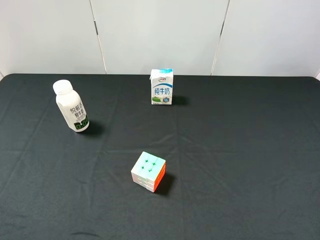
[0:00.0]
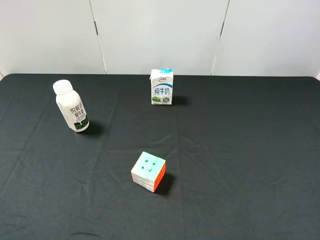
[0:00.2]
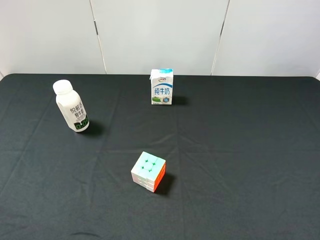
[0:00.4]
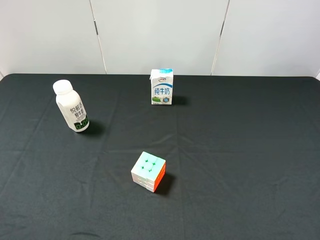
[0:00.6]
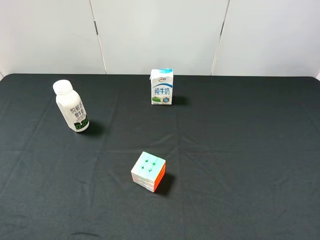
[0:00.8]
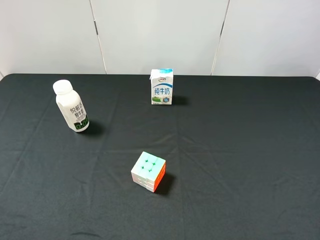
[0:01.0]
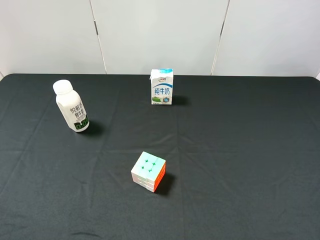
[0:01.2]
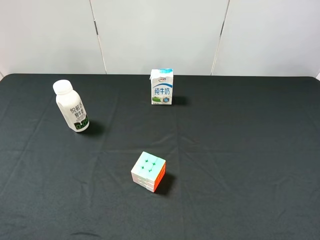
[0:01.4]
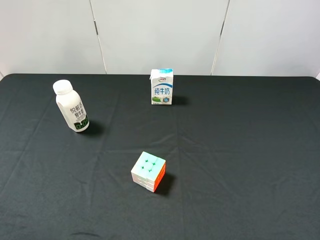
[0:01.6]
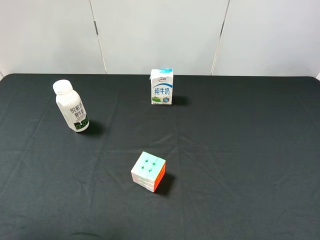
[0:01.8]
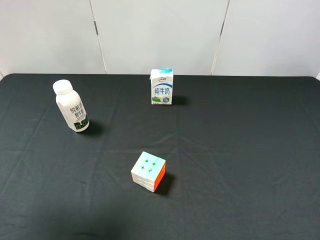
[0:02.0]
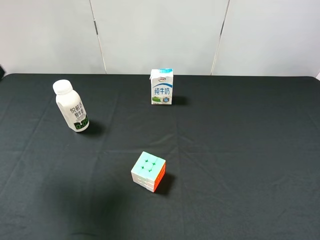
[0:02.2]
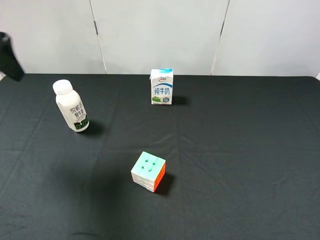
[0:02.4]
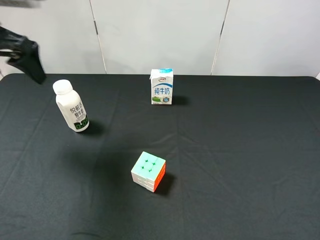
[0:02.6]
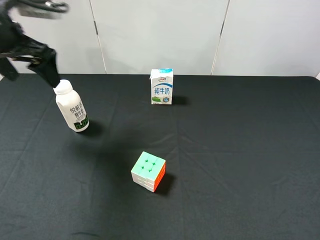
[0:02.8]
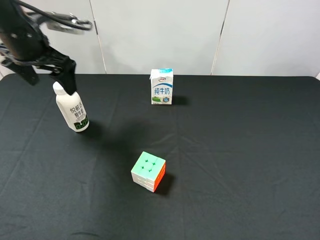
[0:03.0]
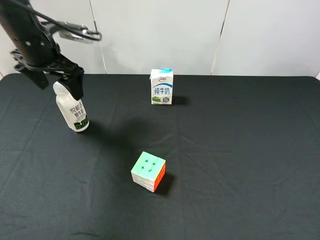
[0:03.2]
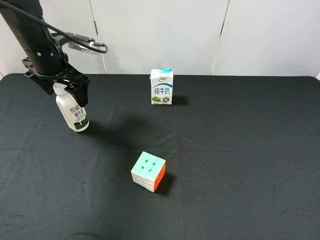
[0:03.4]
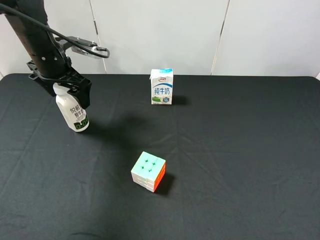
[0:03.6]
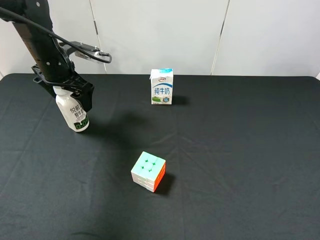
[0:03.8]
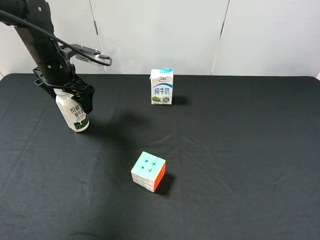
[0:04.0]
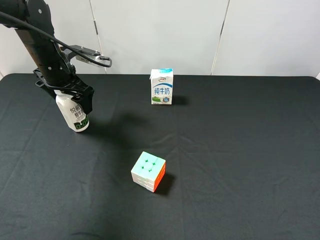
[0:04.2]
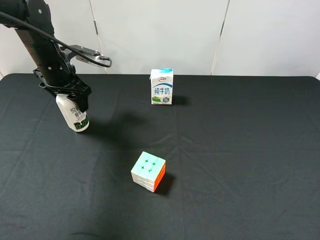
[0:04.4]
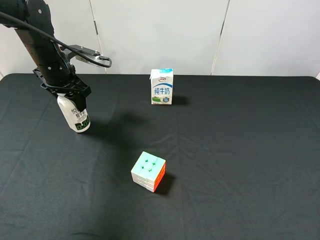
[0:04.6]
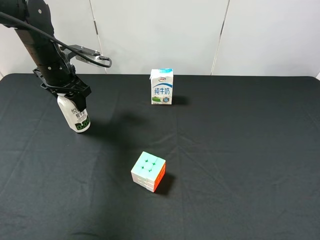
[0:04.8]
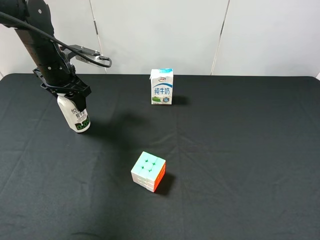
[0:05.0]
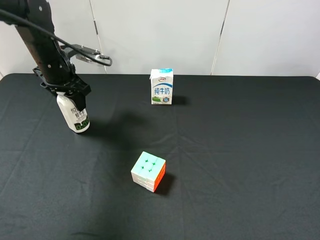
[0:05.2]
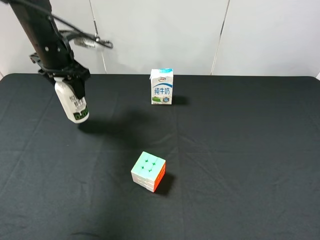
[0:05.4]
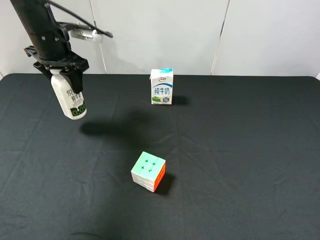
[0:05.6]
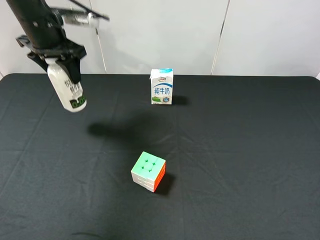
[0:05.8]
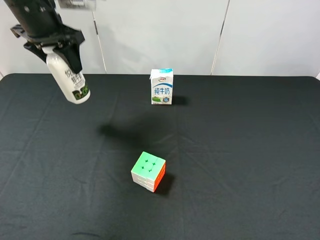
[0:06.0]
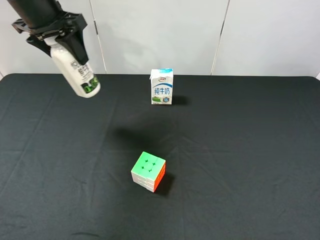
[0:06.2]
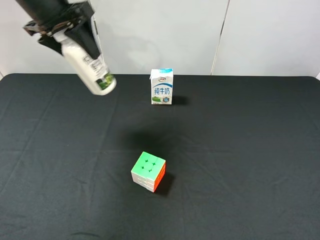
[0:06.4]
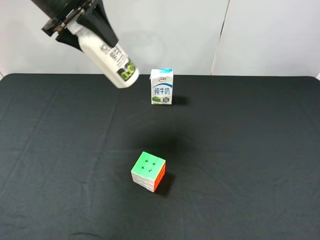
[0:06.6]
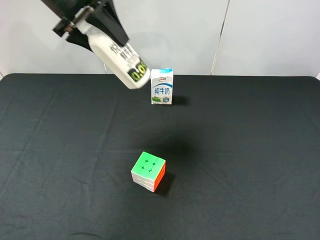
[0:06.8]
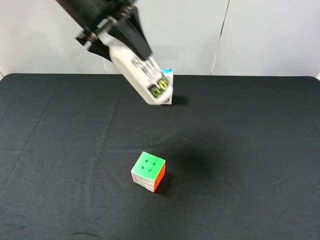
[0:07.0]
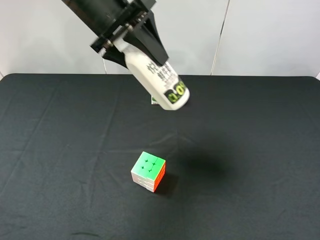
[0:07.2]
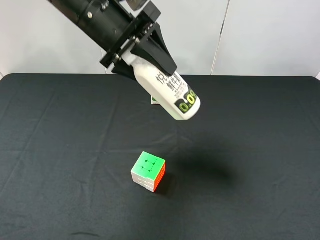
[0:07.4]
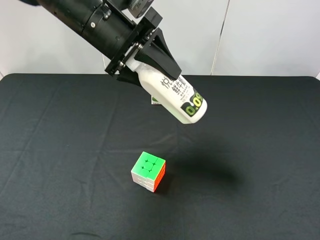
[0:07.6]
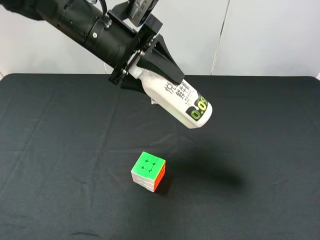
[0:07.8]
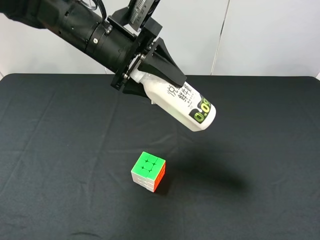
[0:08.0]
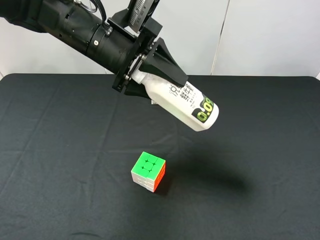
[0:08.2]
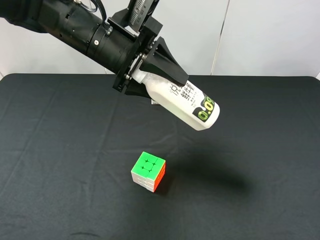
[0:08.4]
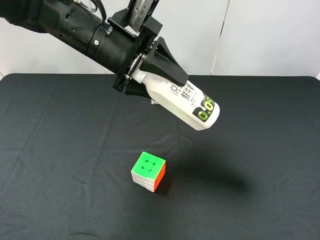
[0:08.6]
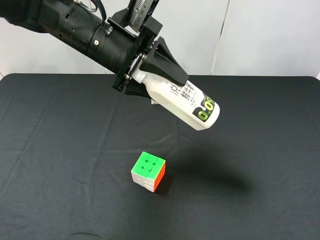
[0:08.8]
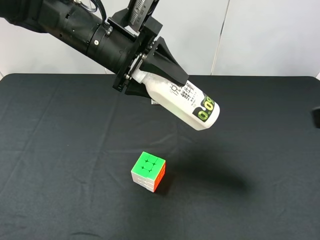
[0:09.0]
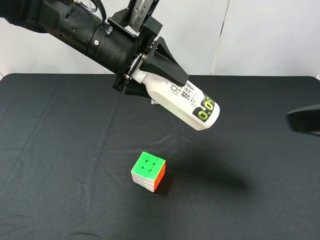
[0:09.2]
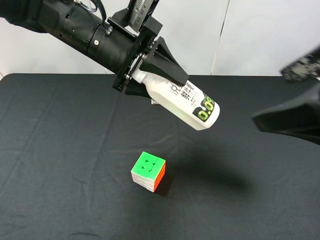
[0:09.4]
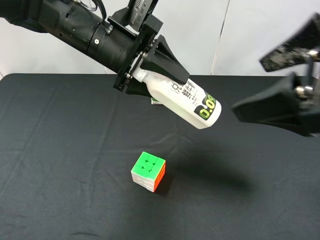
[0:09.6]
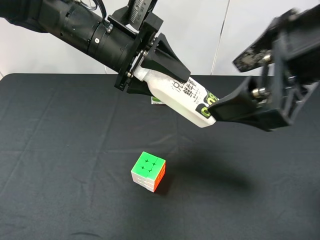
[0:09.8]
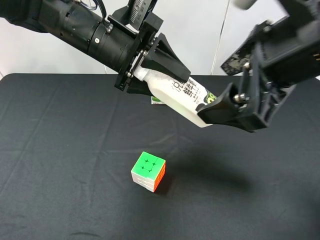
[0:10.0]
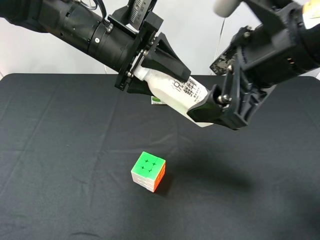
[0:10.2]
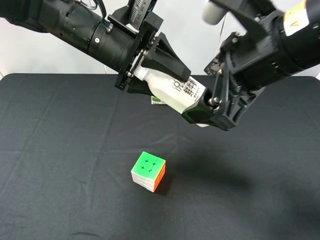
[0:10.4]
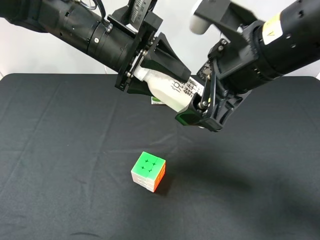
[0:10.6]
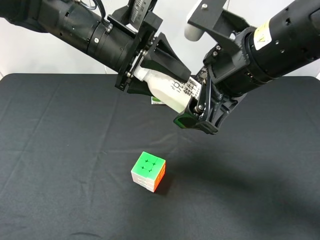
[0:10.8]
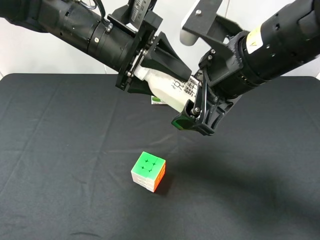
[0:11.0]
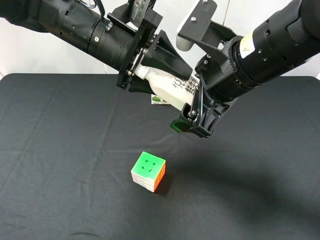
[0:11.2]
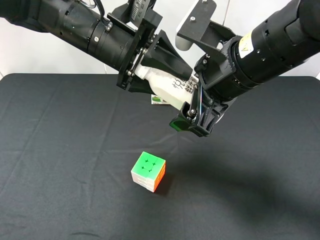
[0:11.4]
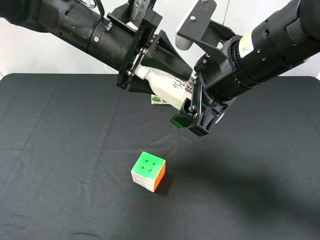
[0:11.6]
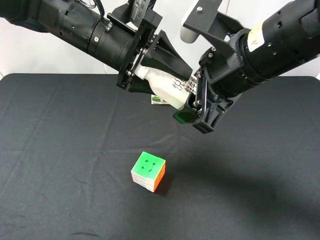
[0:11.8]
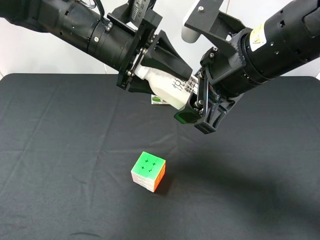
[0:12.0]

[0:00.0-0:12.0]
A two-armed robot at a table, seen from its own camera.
Task of the whole recording: use the left gripper to pick up the item and transfer it from the left gripper to the right gripper.
0:01.6 to 0:03.0: The left gripper heads forward, covering some 30 cm.
0:03.0 to 0:04.4: The left gripper is displaced downward by roughly 10 cm, and closes.
0:04.4 to 0:06.0: The left gripper moves upward, about 10 cm.
0:06.0 to 0:07.6: The left gripper shifts roughly 15 cm to the right and backward.
0:07.6 to 0:09.0: The right gripper travels forward and upward by about 10 cm.
0:09.0 to 0:10.4: The right gripper shifts approximately 15 cm to the left and forward.
0:10.4 to 0:12.0: The right gripper closes.

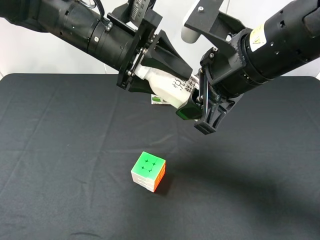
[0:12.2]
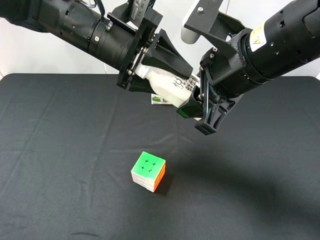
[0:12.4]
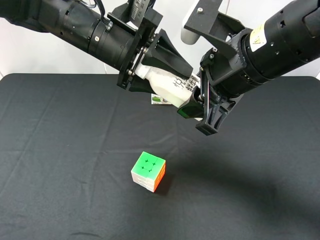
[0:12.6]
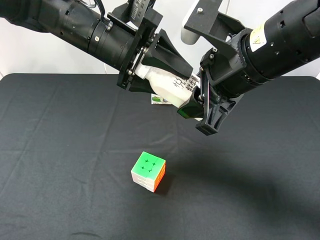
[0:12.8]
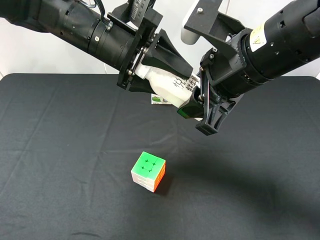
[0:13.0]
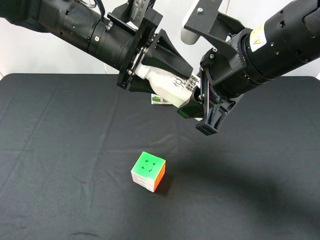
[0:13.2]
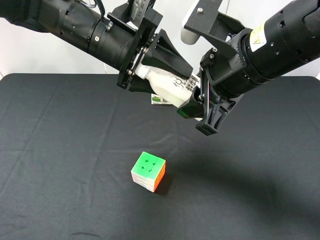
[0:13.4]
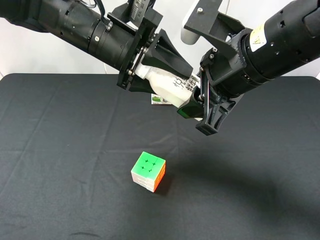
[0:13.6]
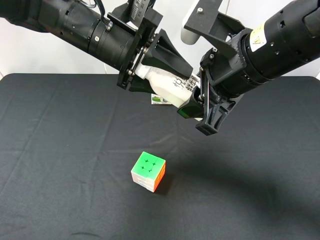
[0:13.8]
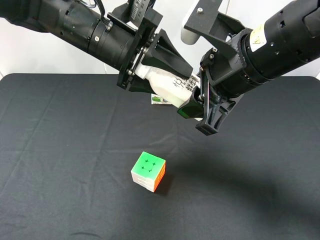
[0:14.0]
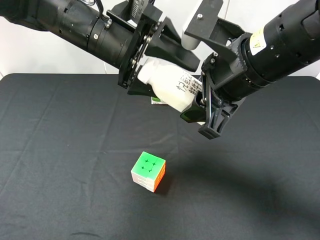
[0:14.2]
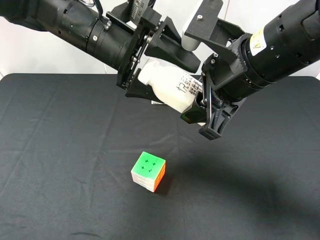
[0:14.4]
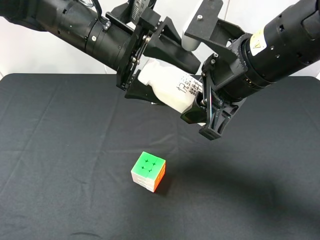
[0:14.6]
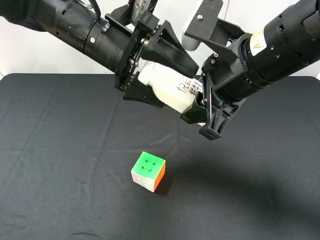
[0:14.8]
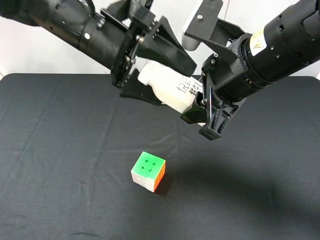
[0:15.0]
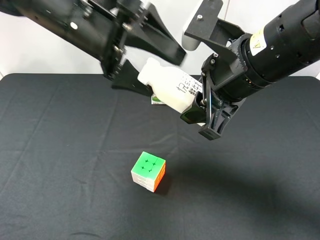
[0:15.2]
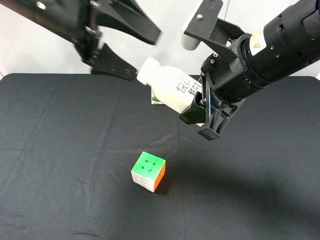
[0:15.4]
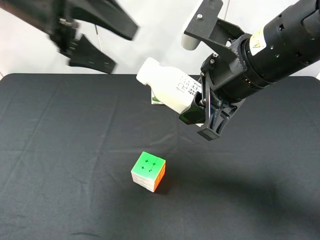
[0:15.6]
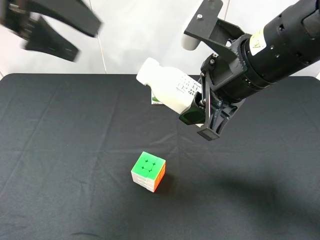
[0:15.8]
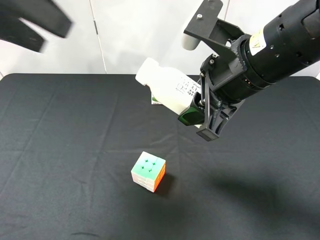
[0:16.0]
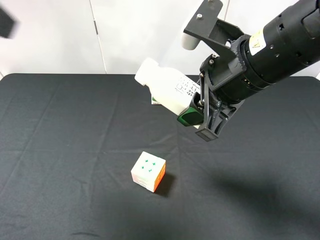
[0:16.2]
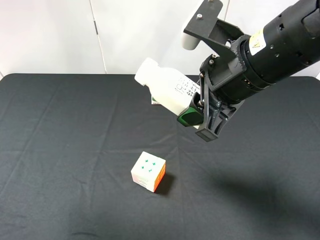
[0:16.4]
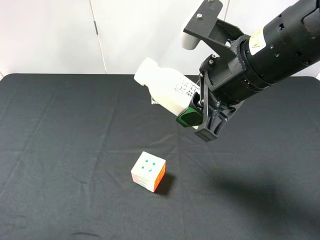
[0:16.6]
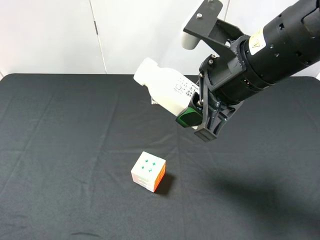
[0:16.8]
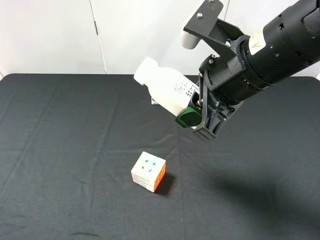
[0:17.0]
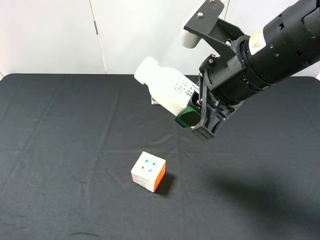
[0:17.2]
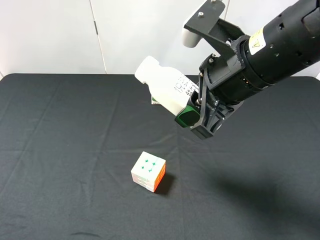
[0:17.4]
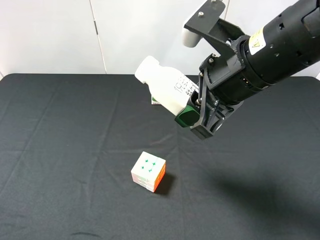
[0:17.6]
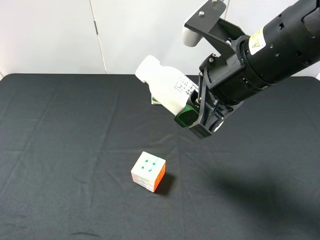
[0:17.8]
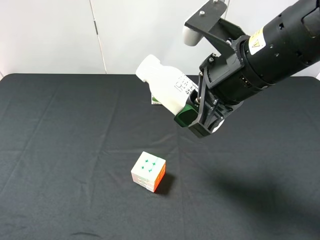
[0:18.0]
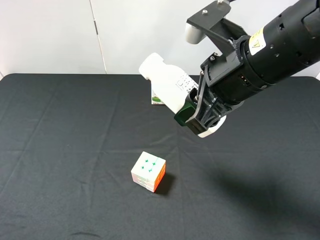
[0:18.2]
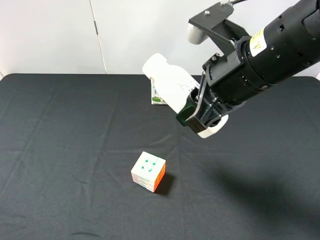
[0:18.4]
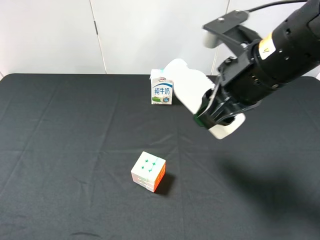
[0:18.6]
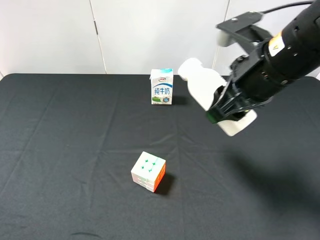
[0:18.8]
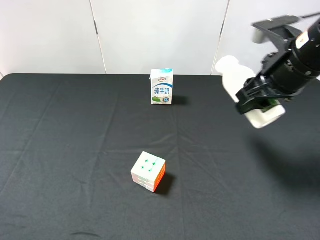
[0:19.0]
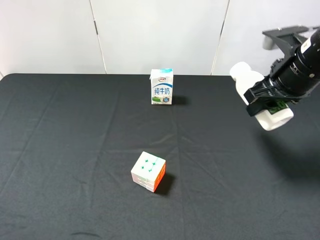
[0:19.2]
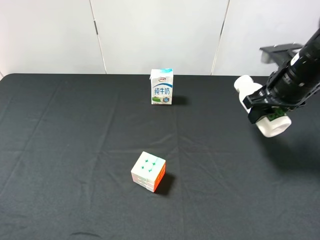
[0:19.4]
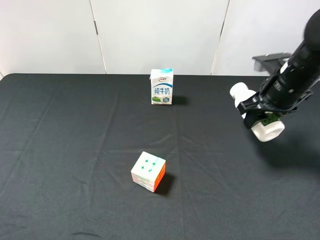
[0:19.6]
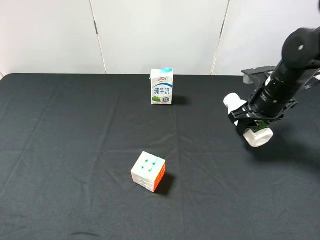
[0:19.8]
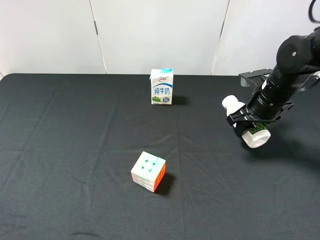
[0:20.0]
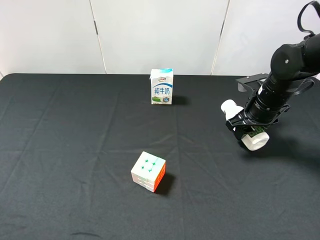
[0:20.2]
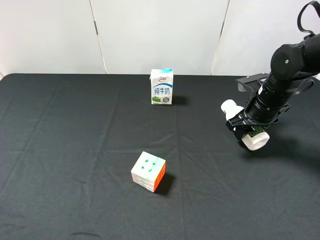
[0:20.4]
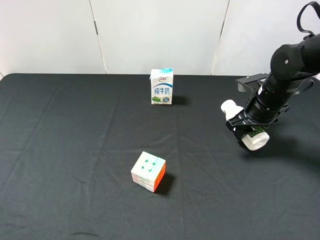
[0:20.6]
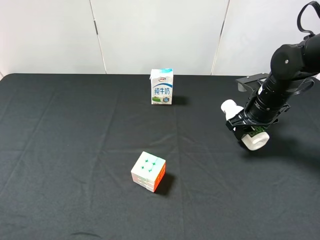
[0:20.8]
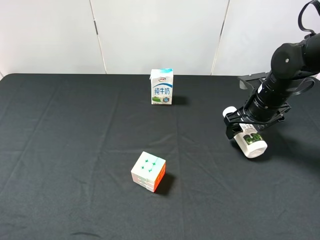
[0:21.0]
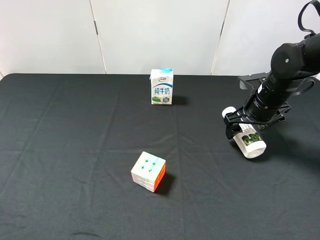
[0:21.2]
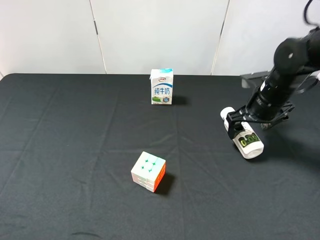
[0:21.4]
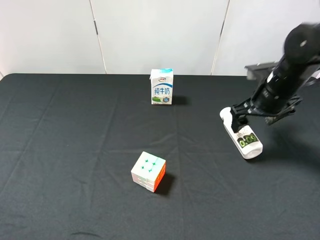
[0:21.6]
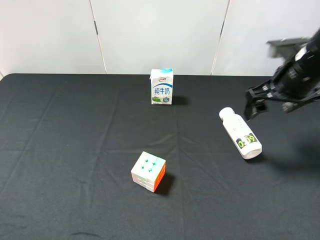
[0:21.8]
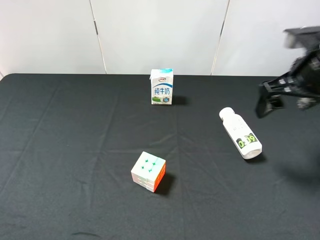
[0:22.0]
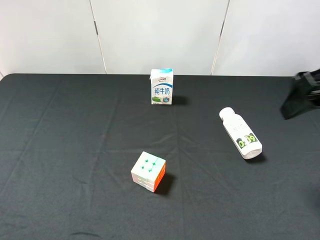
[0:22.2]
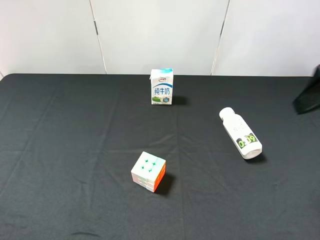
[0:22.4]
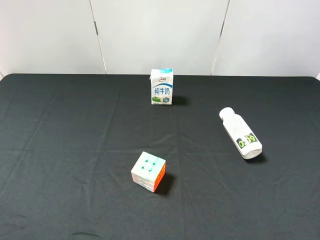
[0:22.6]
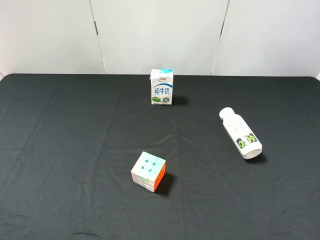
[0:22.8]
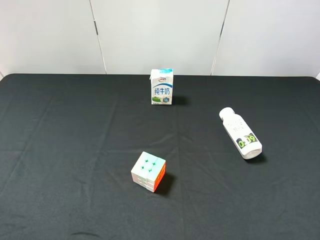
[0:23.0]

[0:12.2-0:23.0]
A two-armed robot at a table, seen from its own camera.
Task of the whole recording: use the left gripper to pick up the item and transfer it from the left gripper to the right gripper.
0:12.2 to 0:13.8: Both grippers stay put.
0:13.8 to 0:15.2: The left gripper opens.
0:15.2 to 0:16.8: The left gripper goes about 35 cm backward and to the left.
0:16.8 to 0:18.4: The left gripper is displaced downward by about 5 cm.
0:18.4 to 0:20.0: The right gripper moves downward, forward and to the right, roughly 20 cm.
0:20.0 to 0:21.4: The right gripper opens.
0:21.4 to 0:23.0: The right gripper shifts approximately 35 cm backward and upward.
